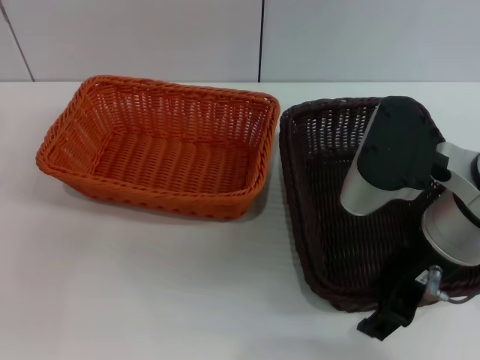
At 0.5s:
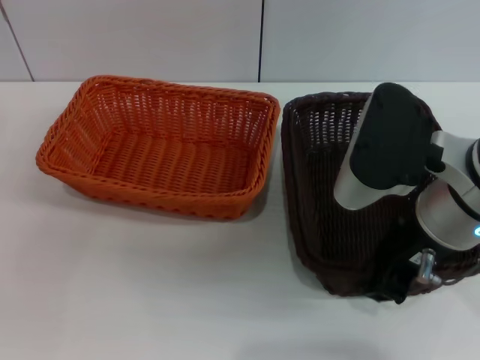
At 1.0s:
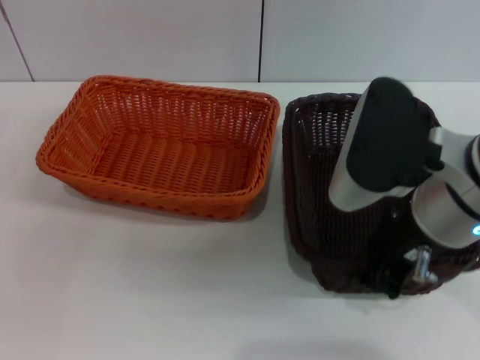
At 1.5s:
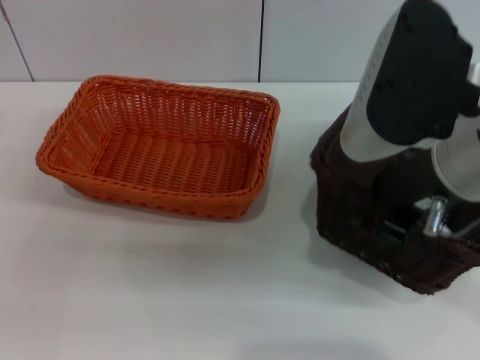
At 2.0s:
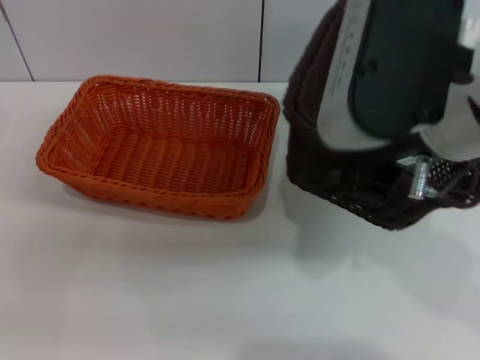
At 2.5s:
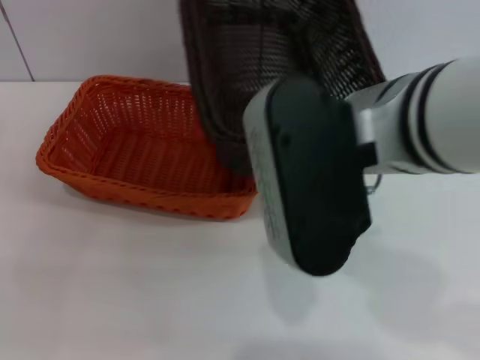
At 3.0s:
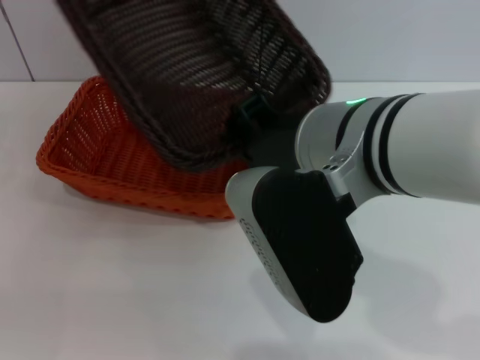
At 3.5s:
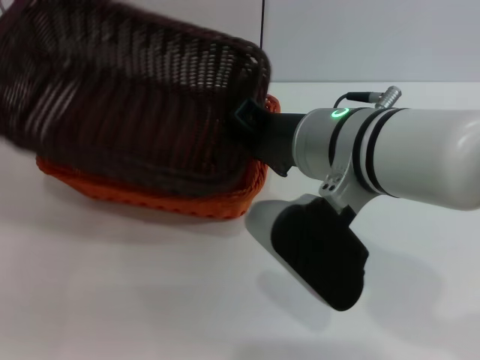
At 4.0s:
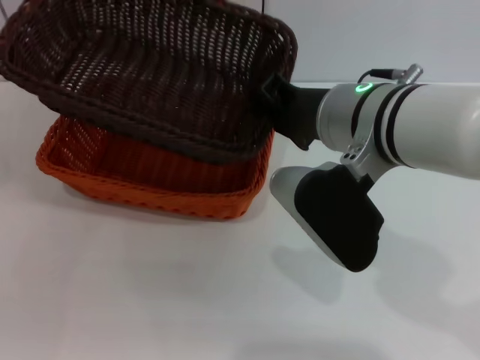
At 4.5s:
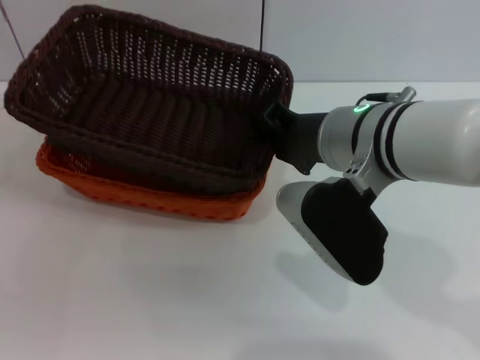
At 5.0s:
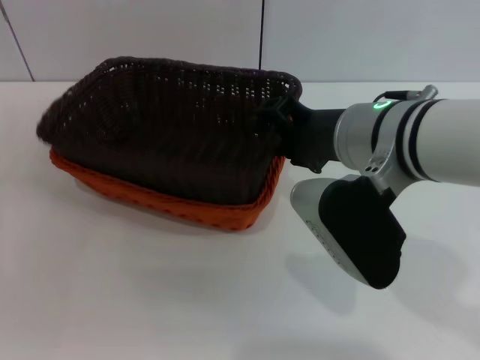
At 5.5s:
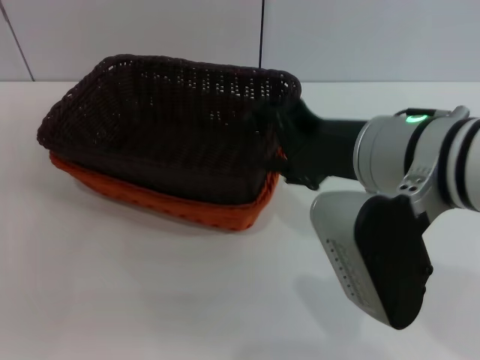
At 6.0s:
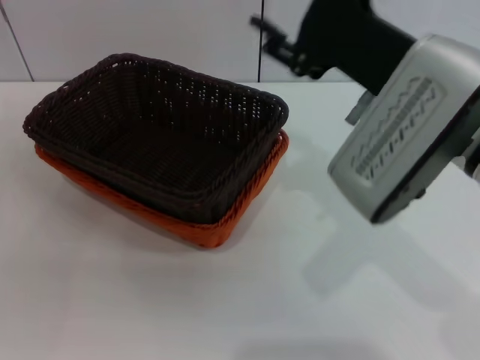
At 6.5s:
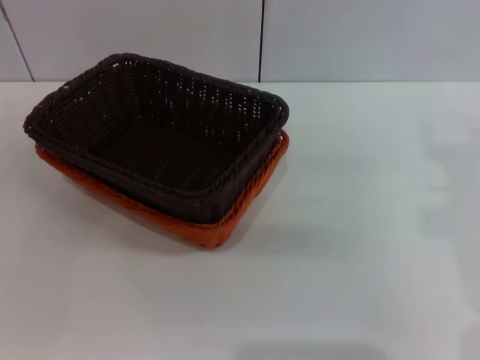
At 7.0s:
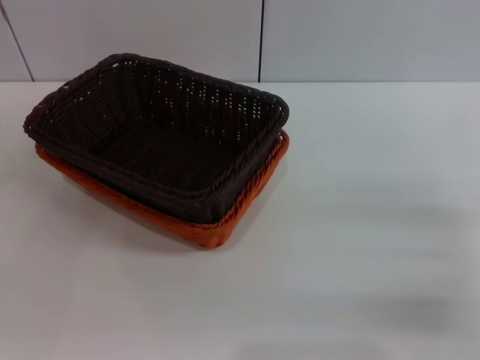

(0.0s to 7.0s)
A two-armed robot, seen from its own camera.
Step, 1.0s - 5.5s: Place the dark basket on the light basket with the right gripper.
0.0s - 2.0s: The right gripper goes about 10 cm upward, and closes.
2.0s - 3.5s: The right gripper moves downward and to the left, roughly 10 cm.
3.5s - 5.0s: The right gripper opens up.
5.0s - 7.0s: The right gripper is displaced to the right and downward by approximately 25 cm, and opens its fingers.
